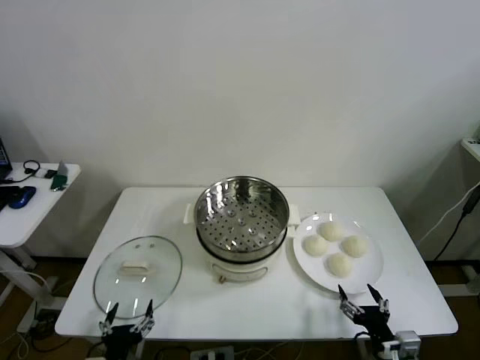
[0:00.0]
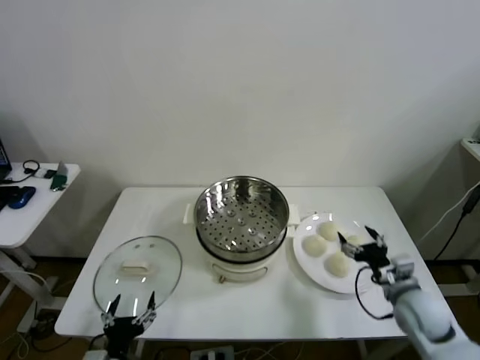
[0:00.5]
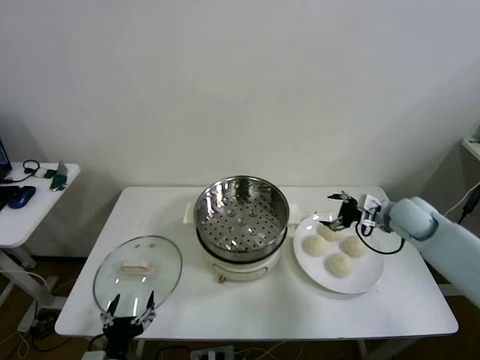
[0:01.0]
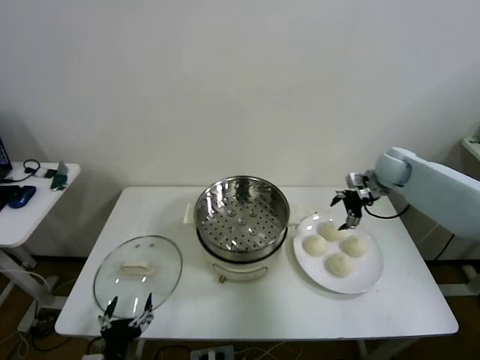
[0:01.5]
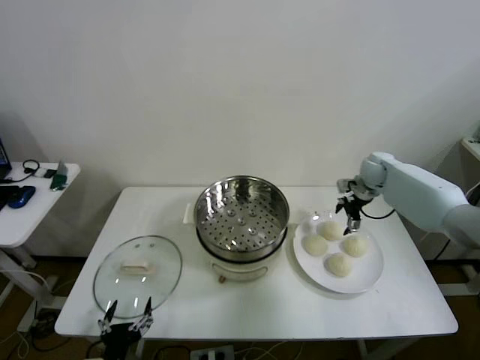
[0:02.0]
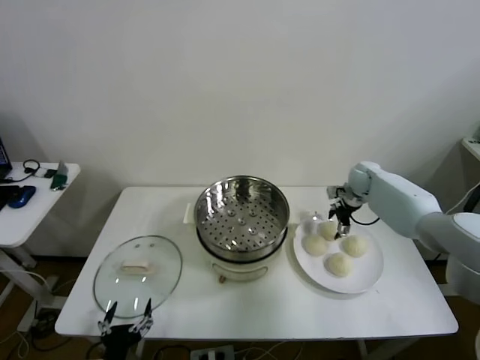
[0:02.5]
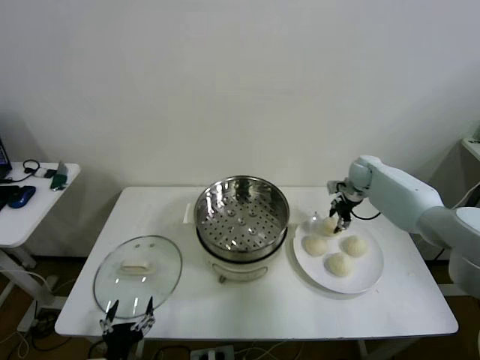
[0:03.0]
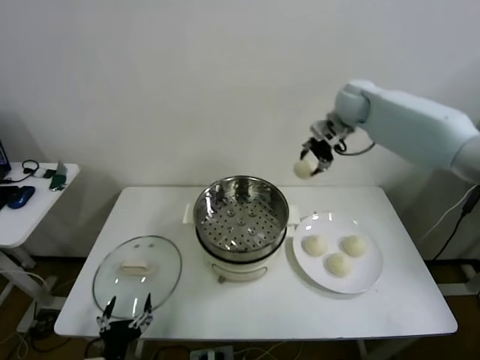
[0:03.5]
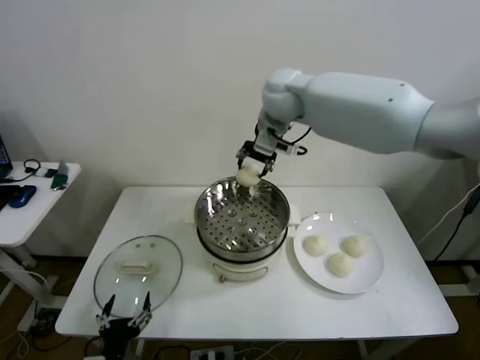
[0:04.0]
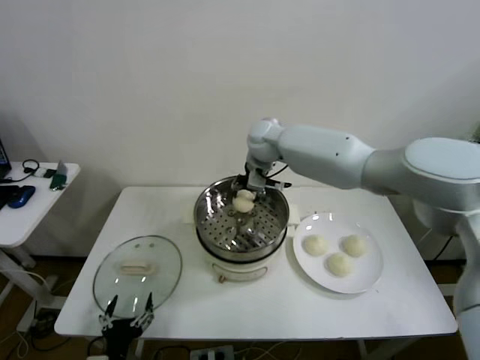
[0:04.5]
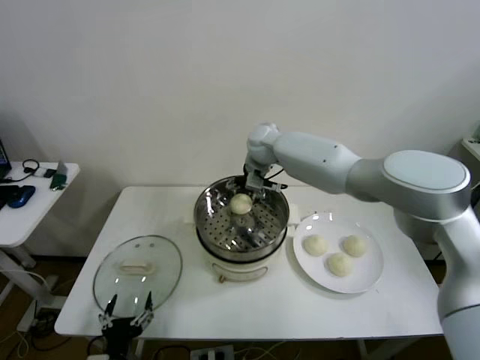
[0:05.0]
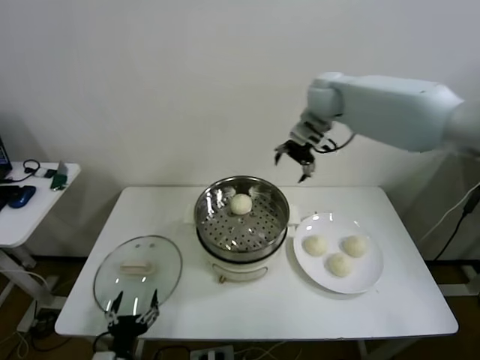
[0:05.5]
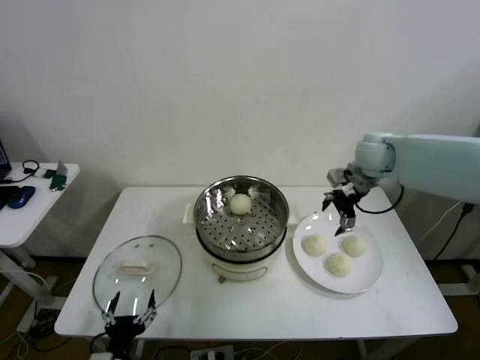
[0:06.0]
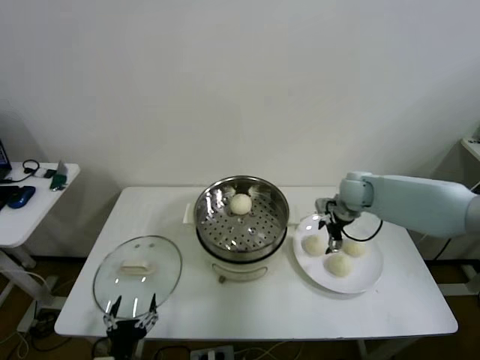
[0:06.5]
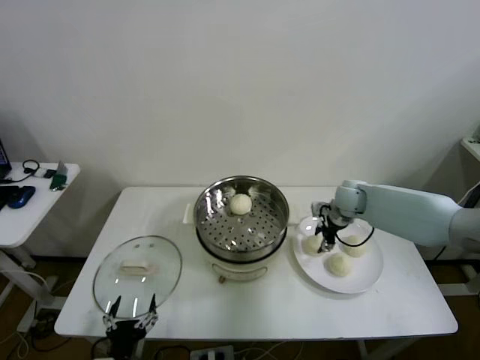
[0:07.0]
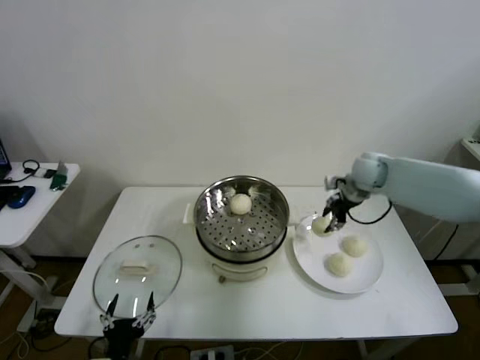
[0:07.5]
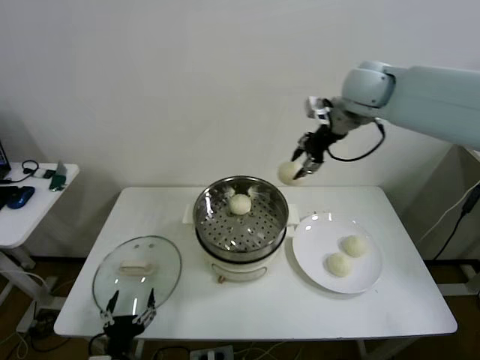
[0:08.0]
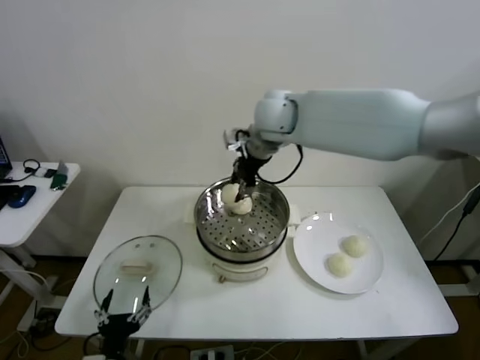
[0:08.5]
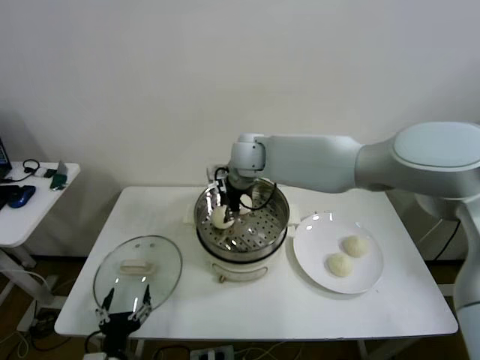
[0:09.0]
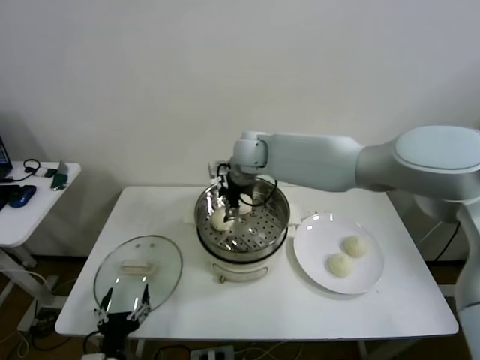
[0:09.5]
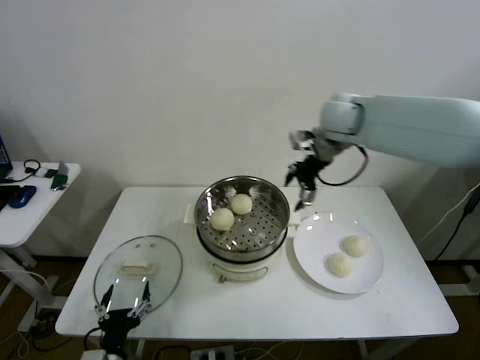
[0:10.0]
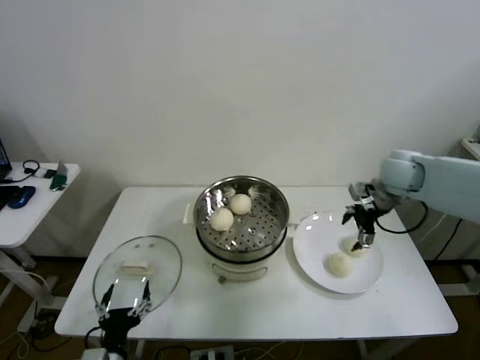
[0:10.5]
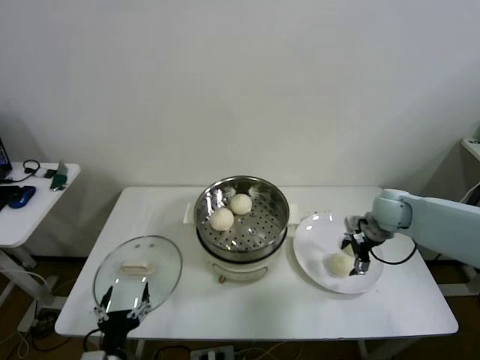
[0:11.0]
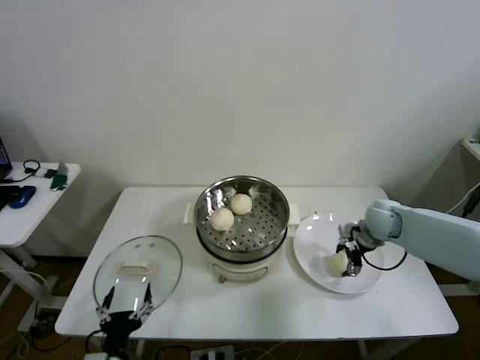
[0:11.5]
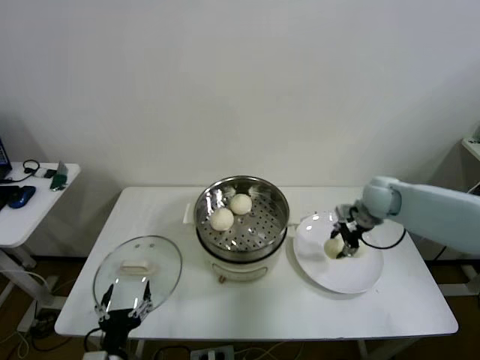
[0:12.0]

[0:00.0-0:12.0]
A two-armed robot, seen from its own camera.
Step, 0:00.0 to 0:02.5: Grasp the baozi in the plate with right gripper.
Step, 0:03.0 to 0:04.5: Place the baozi on the steamer with right gripper.
Step, 0:05.0 to 0:07.0: Grasp the baozi in the plate with right gripper.
Step, 0:07.5 to 0:09.0: Place the baozi on the steamer with right gripper.
Step, 0:09.5 to 0:11.5: Grasp the baozi in the plate with right gripper.
0:02.0 to 0:04.0: The right gripper moves to the left and upward, some 35 cm, and closes up.
0:04.0 to 0:06.0: The right gripper shifts some 25 cm to the right and downward, and opens its fingers.
0:06.0 to 0:08.0: The right gripper moves upward and to the left, about 15 cm, and closes.
0:08.0 to 0:10.0: The right gripper is displaced downward by some 5 cm, goes to the left and returns, roughly 20 cm each way, and opens its fingers.
0:10.0 to 0:12.0: The right gripper shifts approximately 25 cm downward and to the right, and closes up.

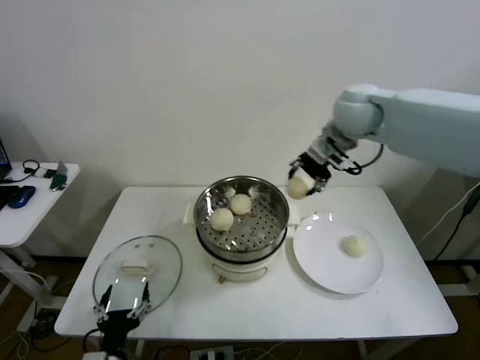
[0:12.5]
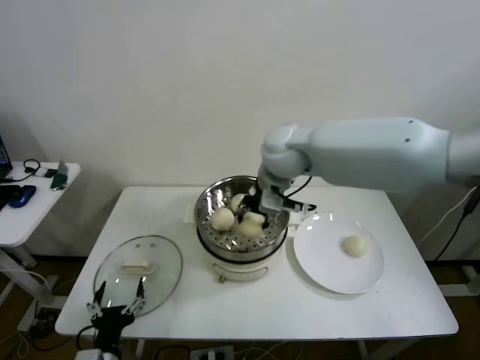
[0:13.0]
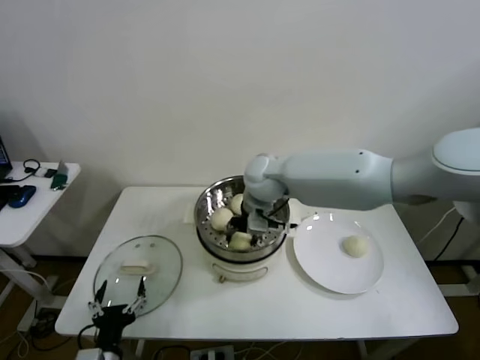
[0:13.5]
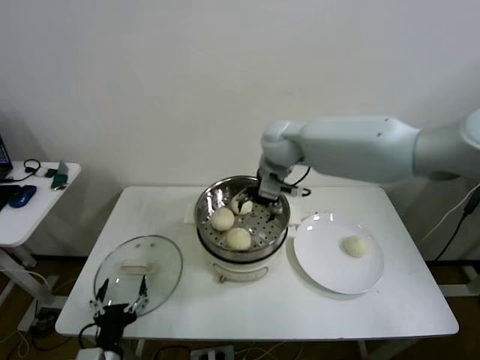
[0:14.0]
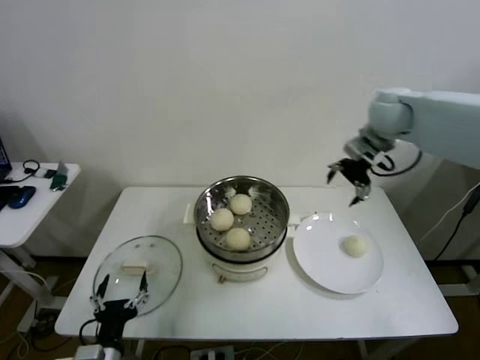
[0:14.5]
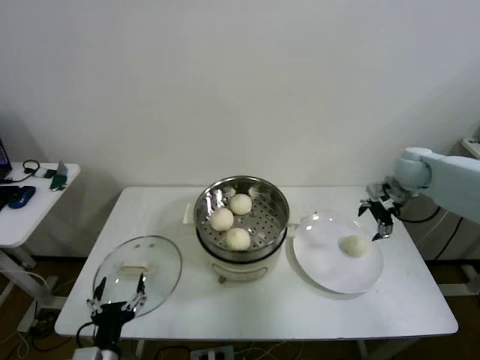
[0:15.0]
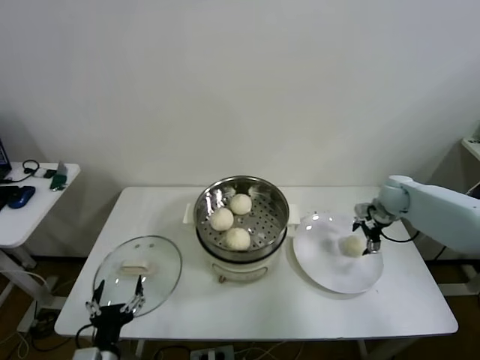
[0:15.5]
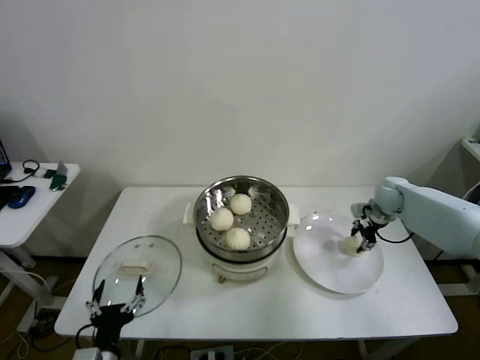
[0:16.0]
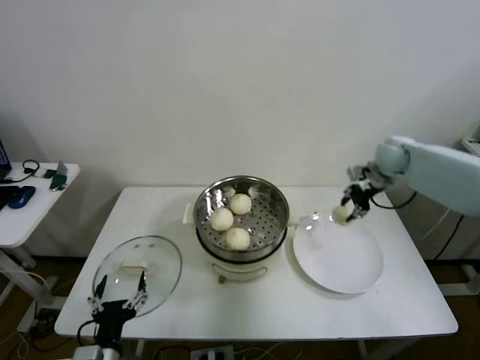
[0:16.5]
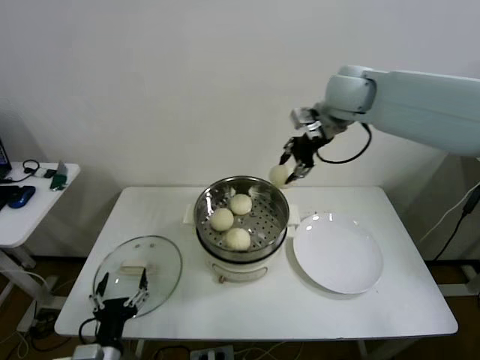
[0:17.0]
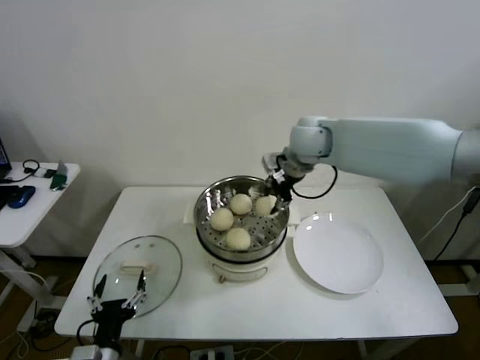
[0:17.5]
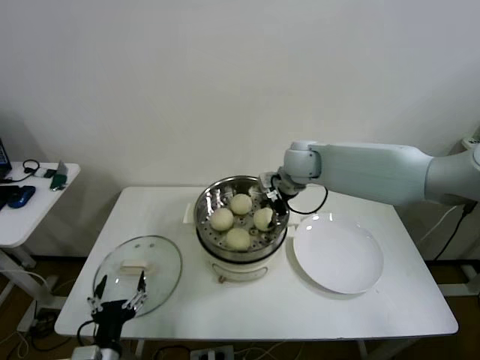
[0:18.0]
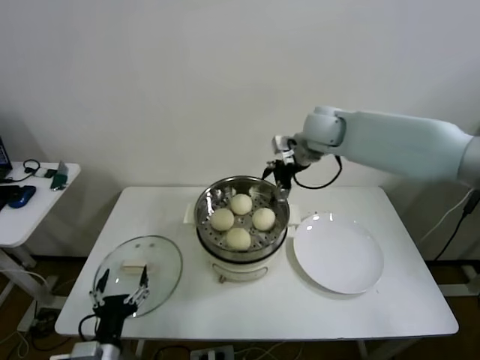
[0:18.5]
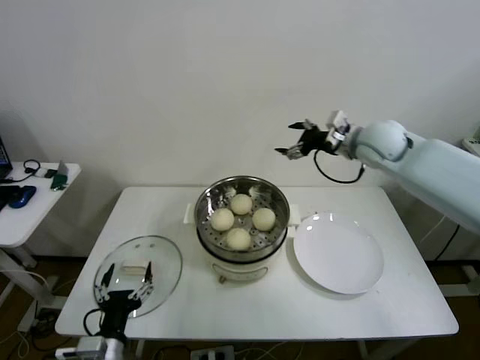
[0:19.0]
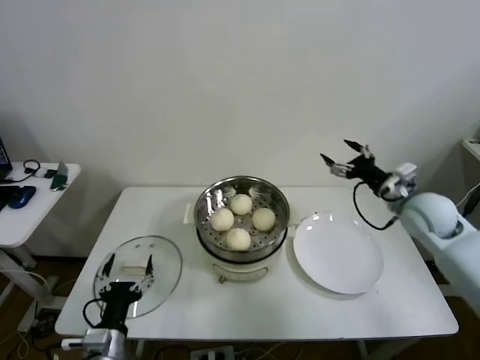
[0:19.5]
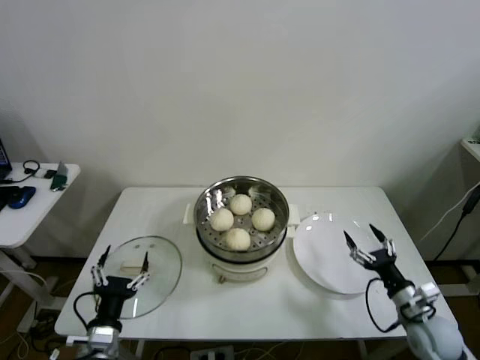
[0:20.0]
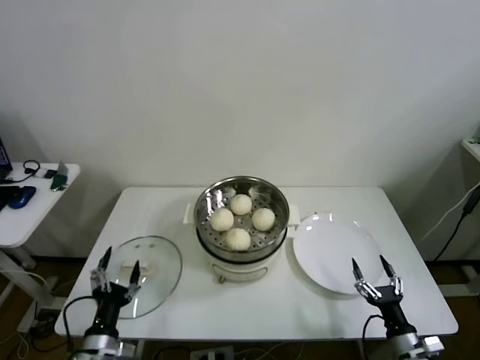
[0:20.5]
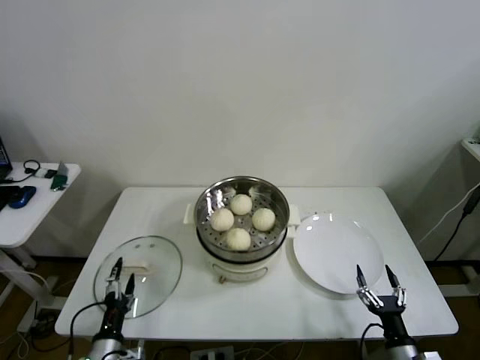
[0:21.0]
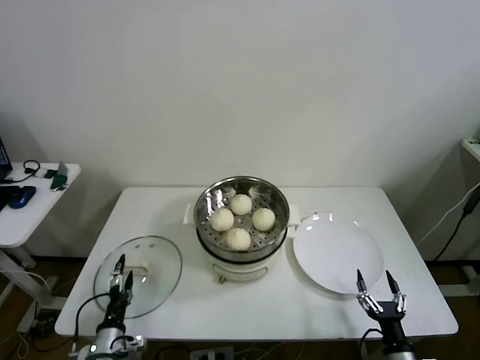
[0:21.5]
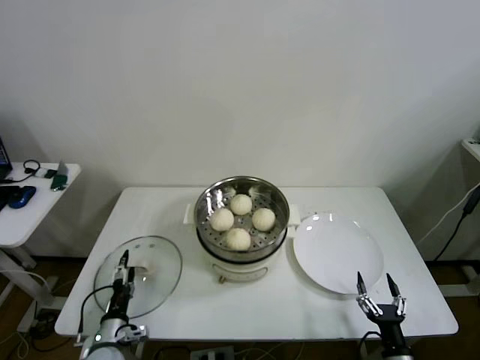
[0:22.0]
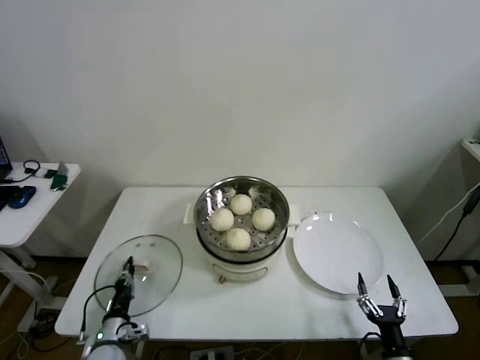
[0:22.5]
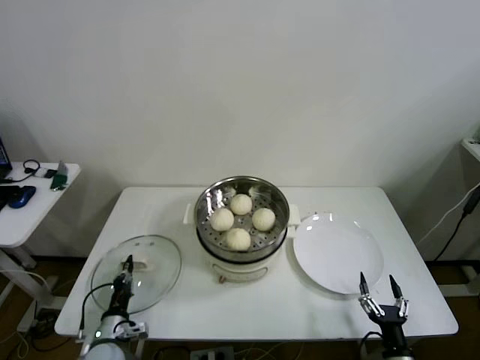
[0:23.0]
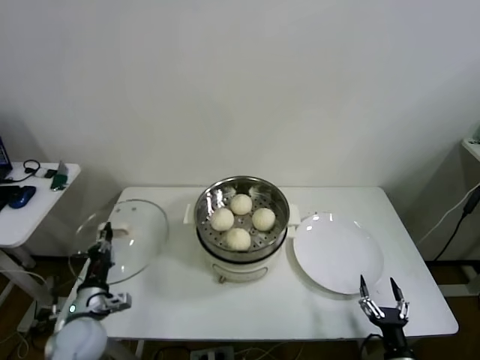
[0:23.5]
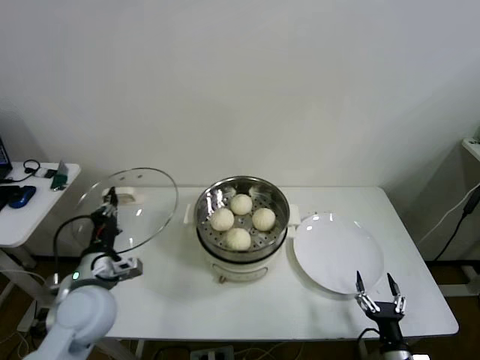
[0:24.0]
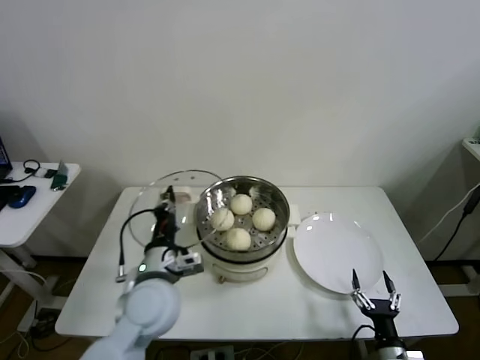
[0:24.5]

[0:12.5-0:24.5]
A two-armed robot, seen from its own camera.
Step, 0:12.5 to 0:13.5: Place the baozi on the steamer with right gripper.
Step, 0:14.0 to 0:15.5: Grasp the baozi in the plate with right gripper.
Step, 0:16.5 to 0:18.0: Place the baozi on the steamer with right gripper.
Step, 0:18.5 to 0:22.5: Grasp the pot lid with left gripper.
0:12.5 to 0:14.5: The right gripper goes approximately 10 cm to the right, and opens its fingers.
0:14.5 to 0:16.5: The right gripper goes some 15 cm downward and to the right, and closes its fingers.
0:16.5 to 0:18.5: The right gripper heads to the left and upward, covering about 20 cm, and opens.
0:18.5 to 0:20.5: The left gripper moves some 5 cm. The right gripper moves downward, backward and to the right, roughly 60 cm.
0:20.5 to 0:22.5: The right gripper ends up roughly 5 cm from where it was. Meanwhile the left gripper heads downward and forward, covering roughly 15 cm, and closes.
0:22.5 to 0:24.5: The left gripper moves upward and to the right, approximately 30 cm.

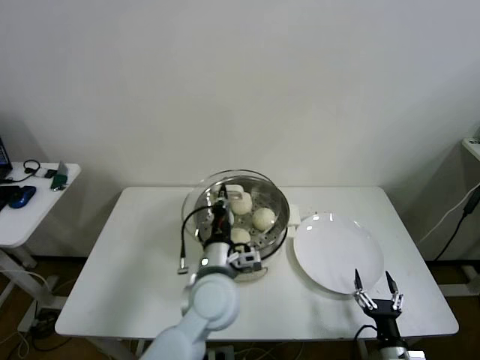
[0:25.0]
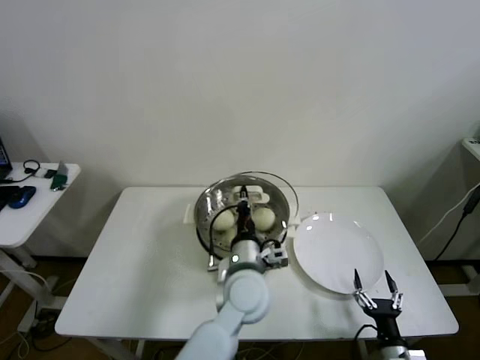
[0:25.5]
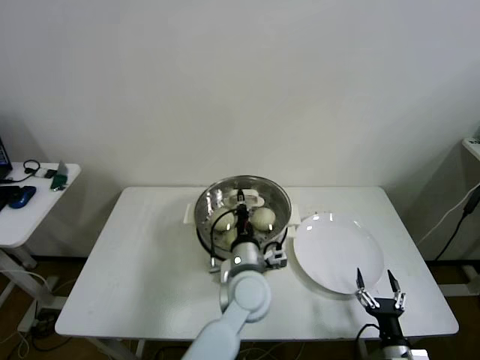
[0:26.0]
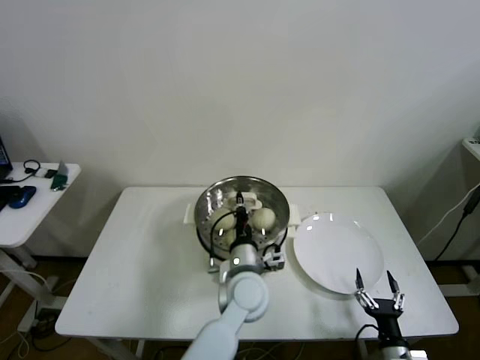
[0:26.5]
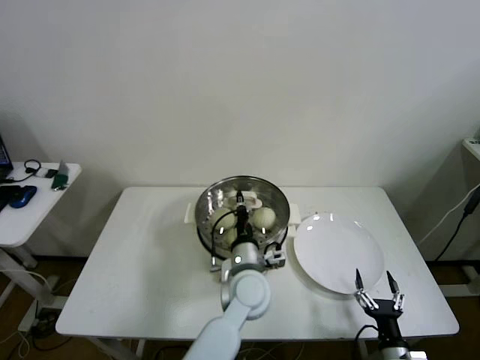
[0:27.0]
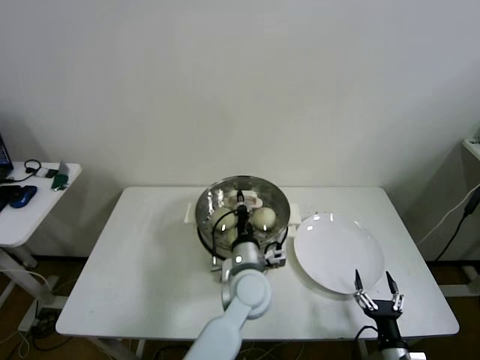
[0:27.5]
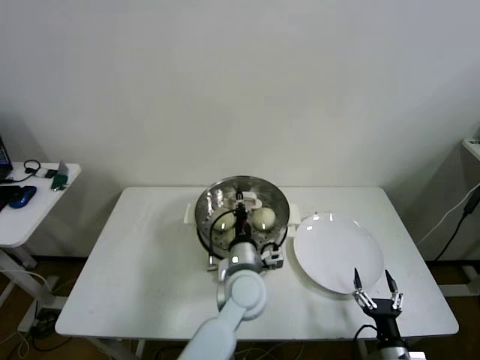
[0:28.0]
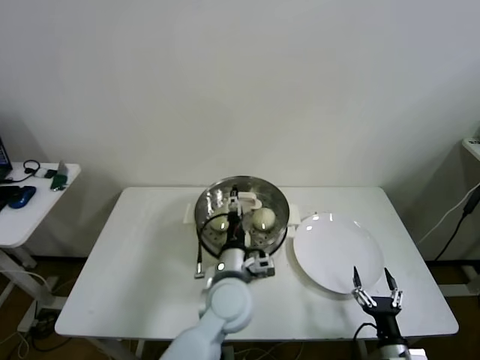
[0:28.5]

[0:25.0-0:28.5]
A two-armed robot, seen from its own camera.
Step, 0:25.0 to 0:28.0: Place the pot lid on the steamer with left gripper.
0:25.0 to 0:27.0: The left gripper shifts about 10 cm to the right and downward.
0:27.0 to 0:28.5: The left gripper opens its fingers.
